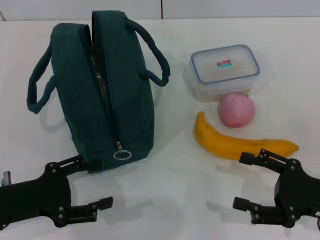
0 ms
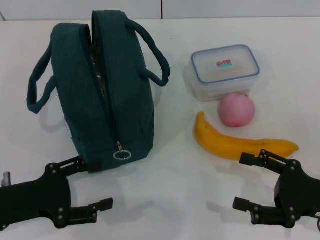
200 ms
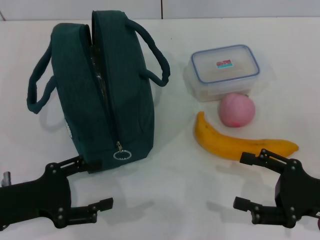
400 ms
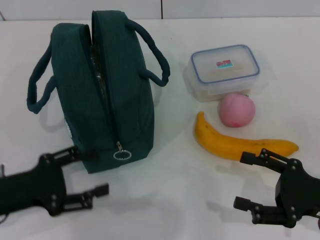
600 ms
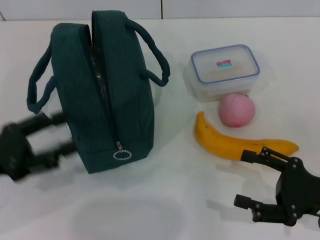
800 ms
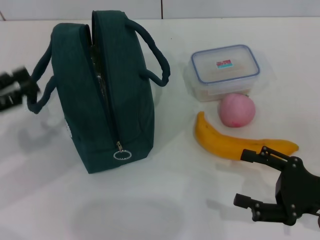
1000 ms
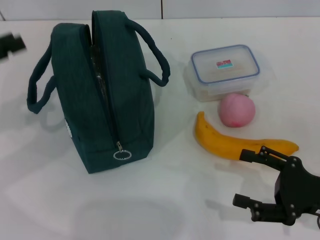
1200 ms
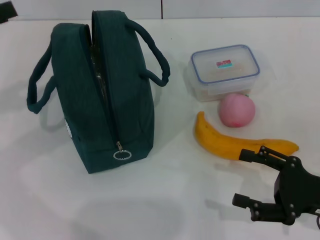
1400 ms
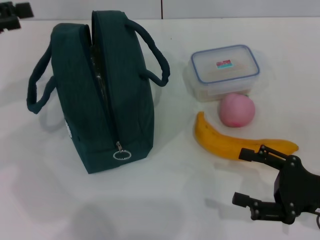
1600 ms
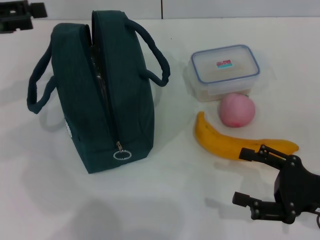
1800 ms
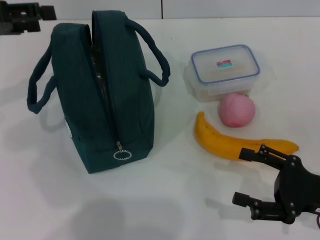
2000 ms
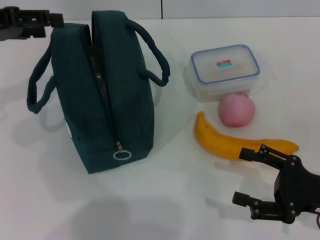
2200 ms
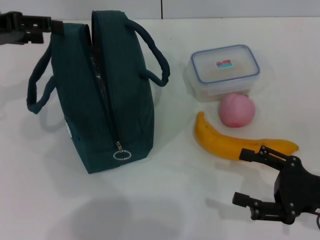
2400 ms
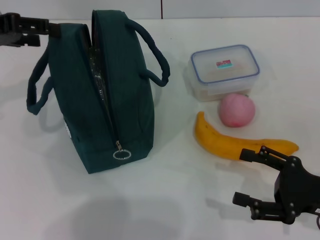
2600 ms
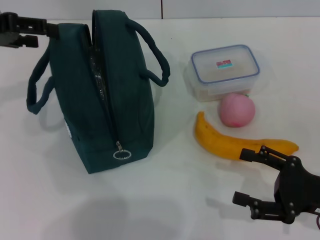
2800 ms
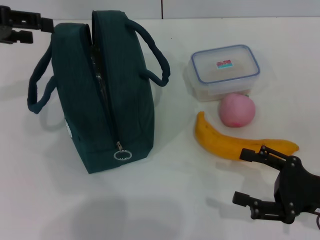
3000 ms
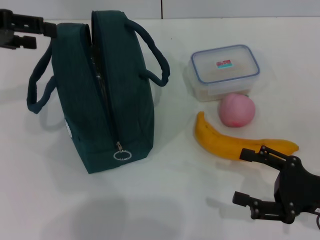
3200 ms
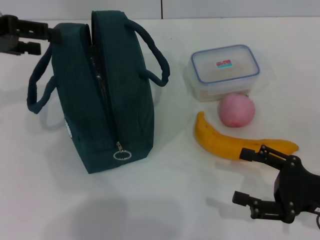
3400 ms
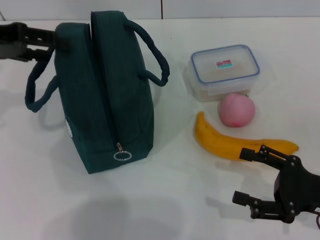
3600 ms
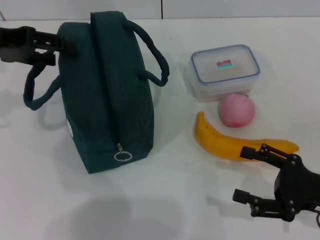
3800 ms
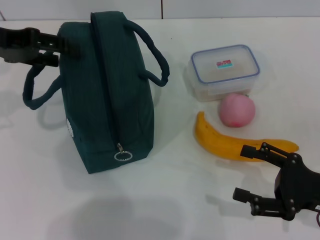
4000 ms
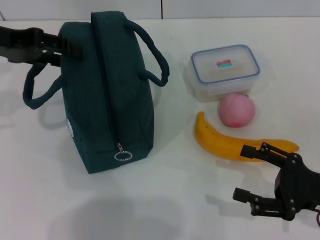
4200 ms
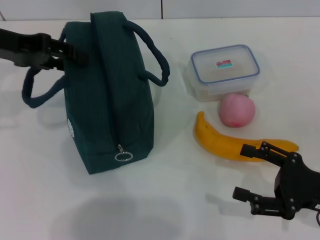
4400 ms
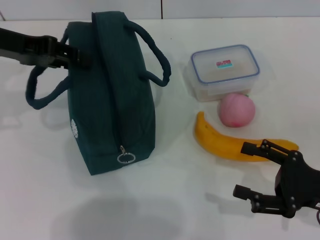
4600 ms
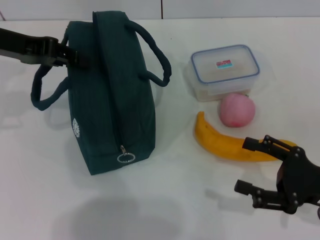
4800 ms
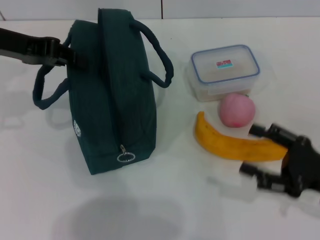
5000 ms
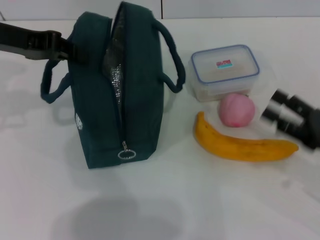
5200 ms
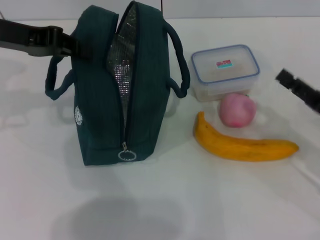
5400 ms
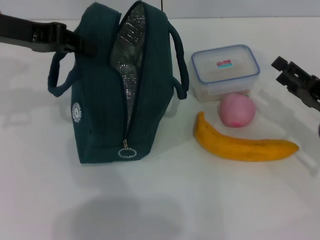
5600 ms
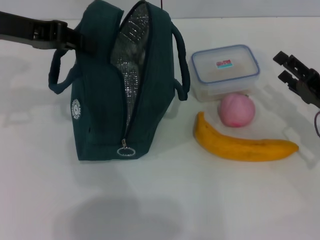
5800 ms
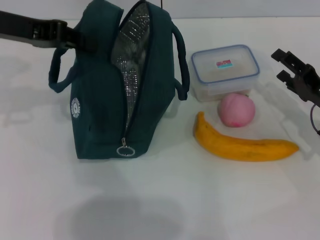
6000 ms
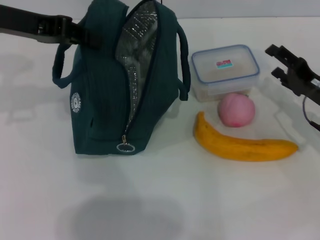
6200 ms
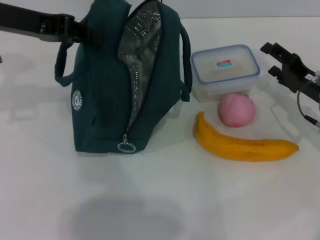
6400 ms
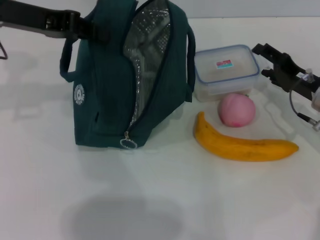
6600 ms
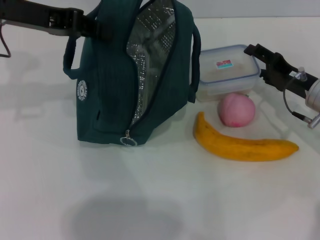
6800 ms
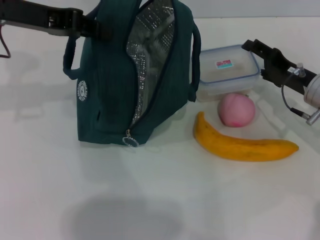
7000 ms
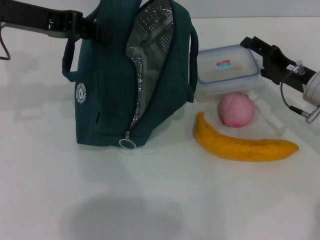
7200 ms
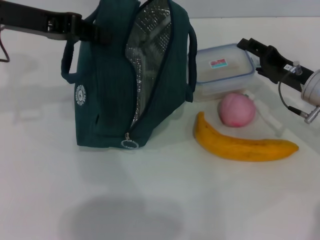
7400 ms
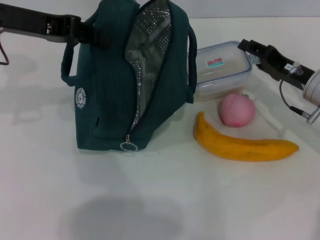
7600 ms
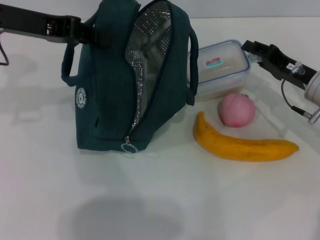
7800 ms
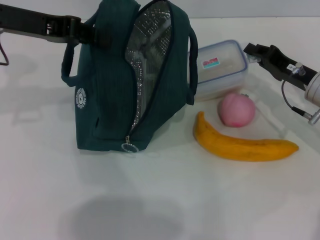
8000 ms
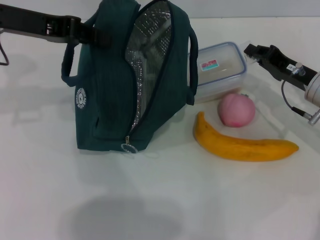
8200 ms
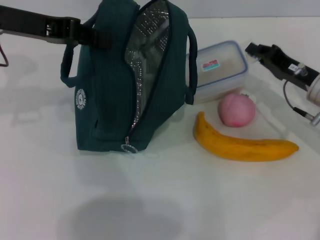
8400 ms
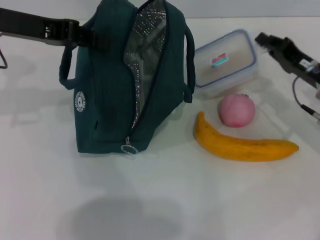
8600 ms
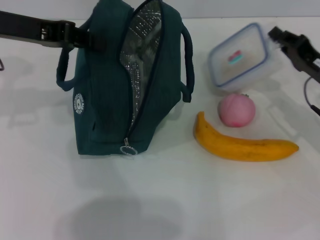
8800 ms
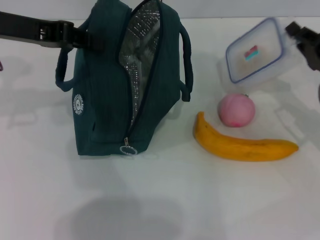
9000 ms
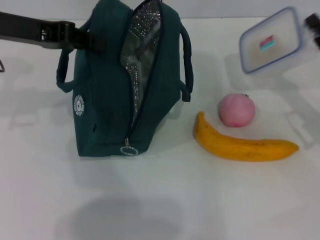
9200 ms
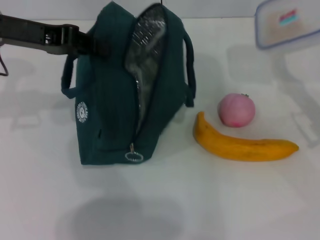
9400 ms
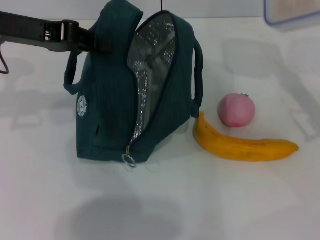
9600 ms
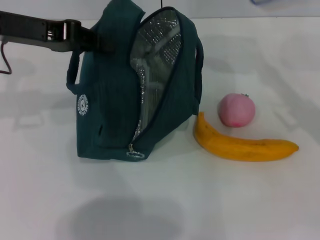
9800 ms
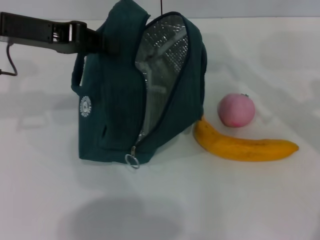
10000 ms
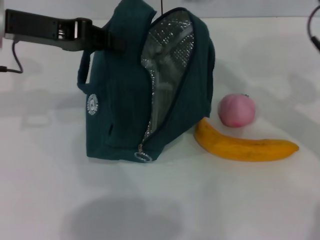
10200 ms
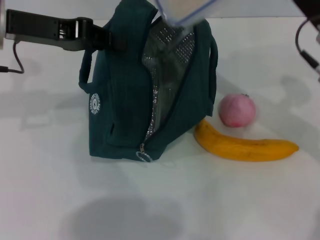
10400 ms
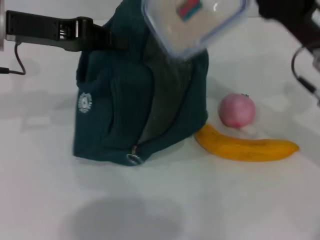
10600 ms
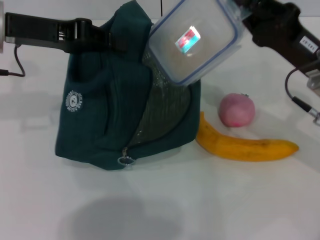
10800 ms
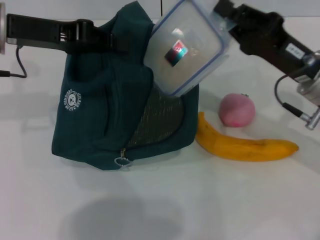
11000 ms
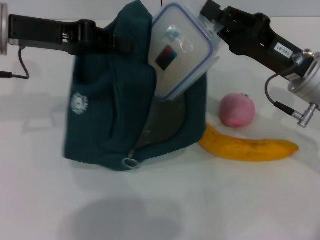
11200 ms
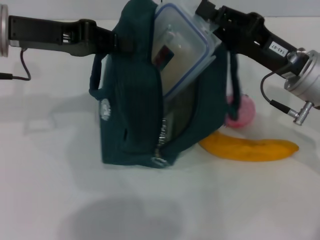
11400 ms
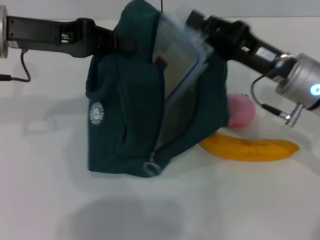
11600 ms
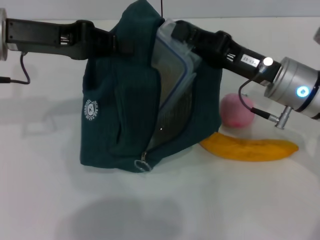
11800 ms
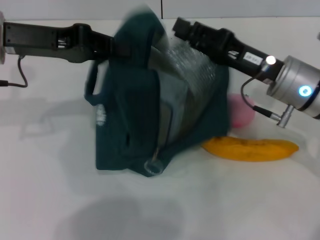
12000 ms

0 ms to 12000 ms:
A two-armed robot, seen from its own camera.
Step, 0 ms to 5800 ms: Hold the lunch bag with your left hand.
Step, 6000 ms to 8200 ms: Pick up the lunch box with your right hand.
0 ms to 1600 ms: The left gripper travels upward, forward and to the left by some 20 cm.
1600 ms to 3000 ms: The grippers move only a little.
3000 ms to 4400 ms: The grippers move only a little.
4400 ms to 6000 ms: The right gripper goes roughly 10 cm forward. Meanwhile the left gripper closes up.
6000 ms to 7600 ms: The right gripper moves about 5 cm.
7600 ms to 9000 ms: The right gripper ends up about 5 cm from where it was, and closes its fingers.
9000 ms to 10400 ms: The right gripper shifts about 10 cm upward and to the left.
10400 ms to 12000 ms: The right gripper changes place by approximately 5 cm.

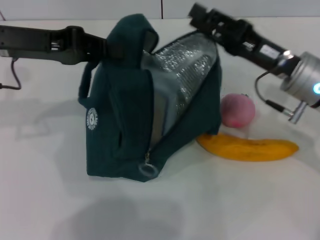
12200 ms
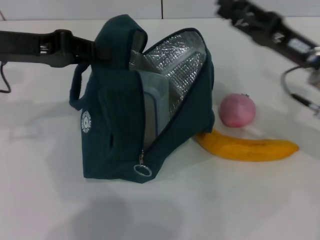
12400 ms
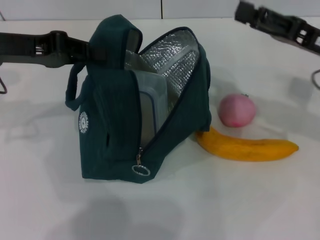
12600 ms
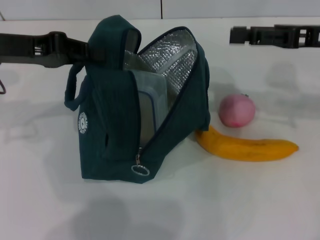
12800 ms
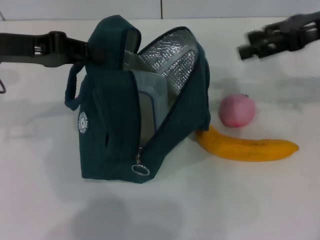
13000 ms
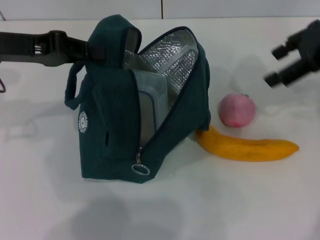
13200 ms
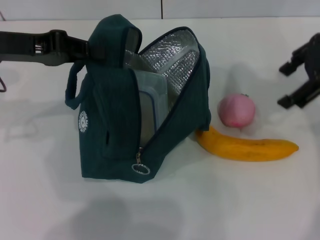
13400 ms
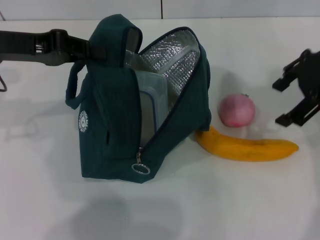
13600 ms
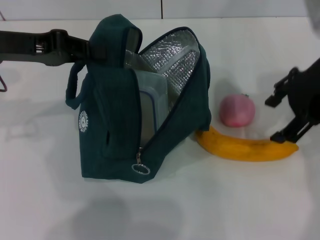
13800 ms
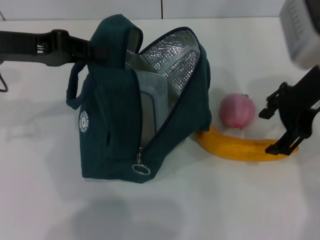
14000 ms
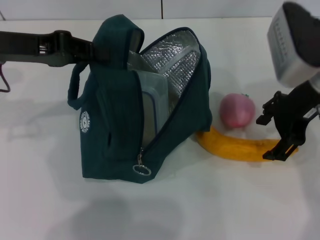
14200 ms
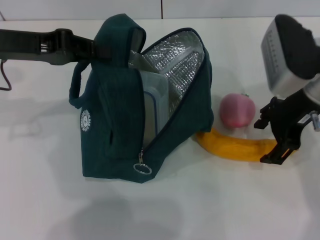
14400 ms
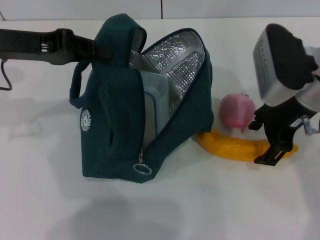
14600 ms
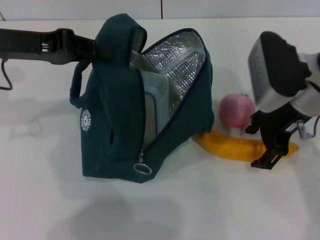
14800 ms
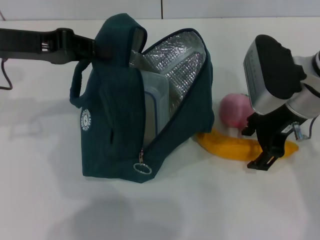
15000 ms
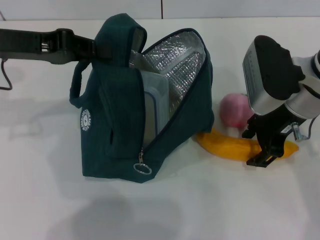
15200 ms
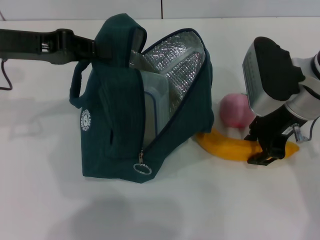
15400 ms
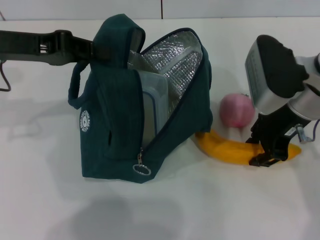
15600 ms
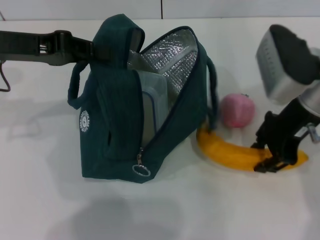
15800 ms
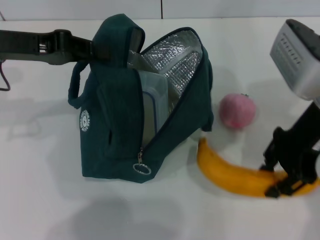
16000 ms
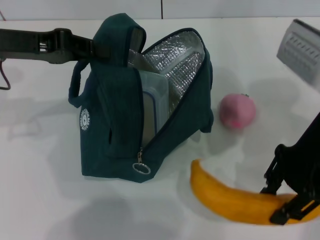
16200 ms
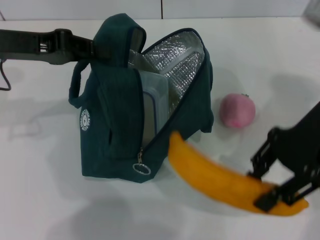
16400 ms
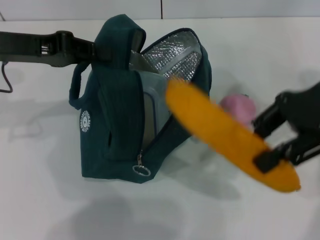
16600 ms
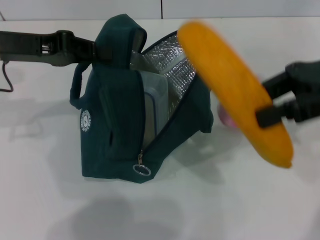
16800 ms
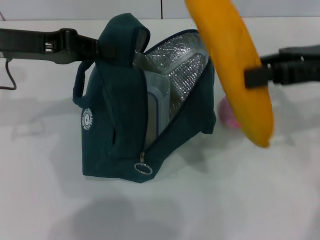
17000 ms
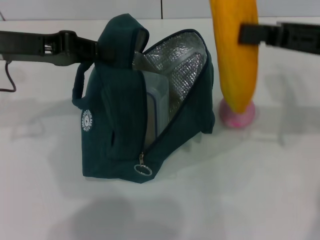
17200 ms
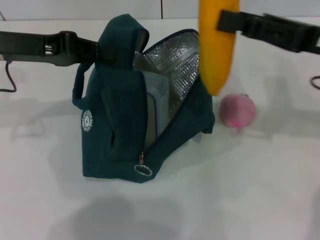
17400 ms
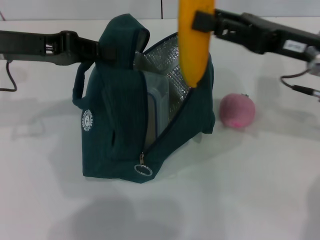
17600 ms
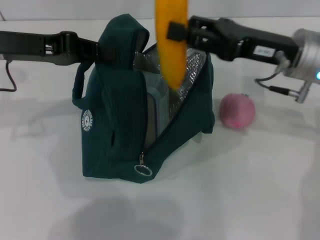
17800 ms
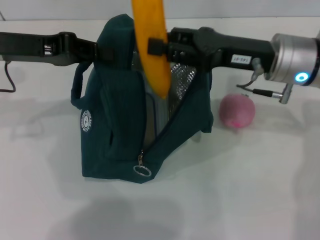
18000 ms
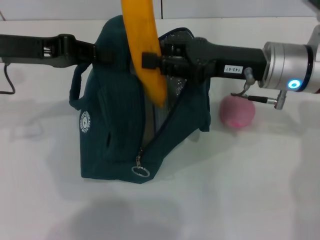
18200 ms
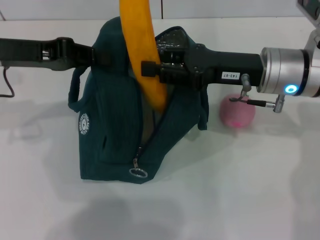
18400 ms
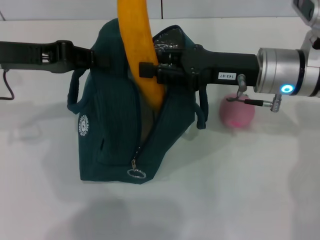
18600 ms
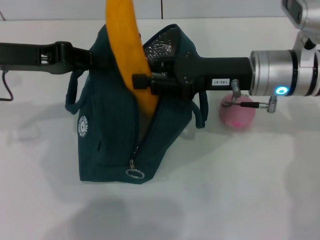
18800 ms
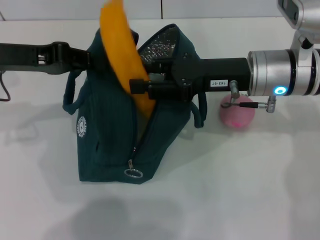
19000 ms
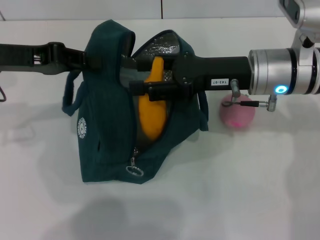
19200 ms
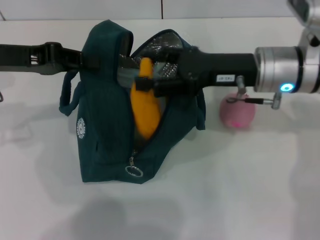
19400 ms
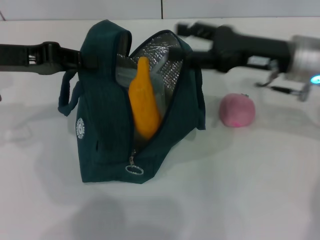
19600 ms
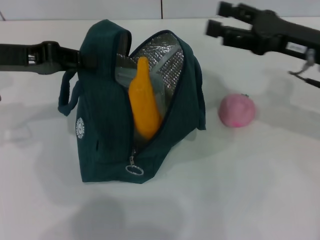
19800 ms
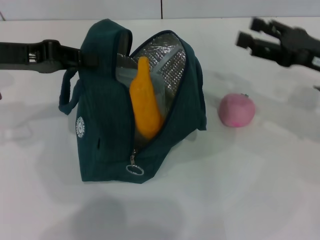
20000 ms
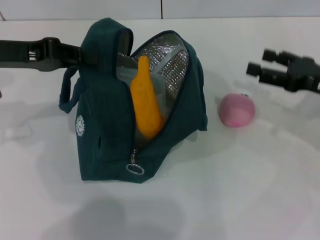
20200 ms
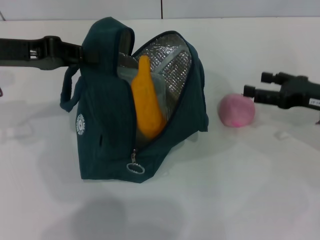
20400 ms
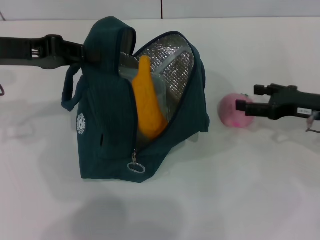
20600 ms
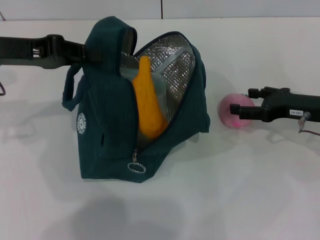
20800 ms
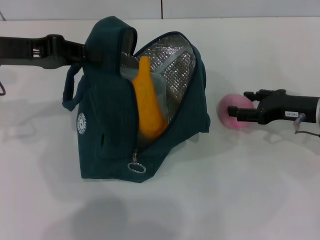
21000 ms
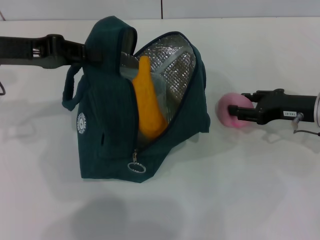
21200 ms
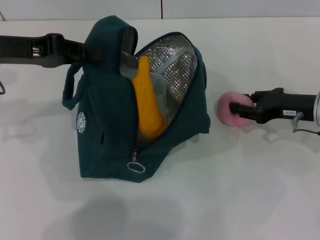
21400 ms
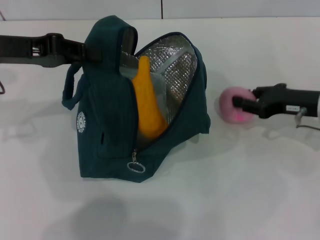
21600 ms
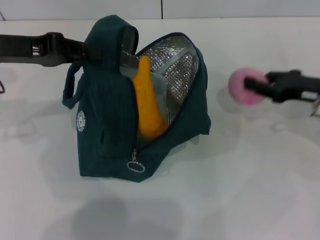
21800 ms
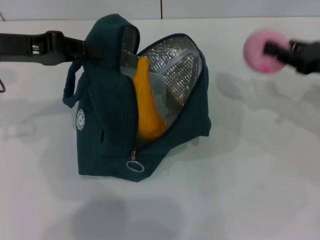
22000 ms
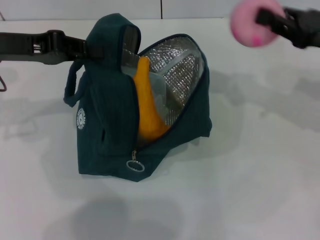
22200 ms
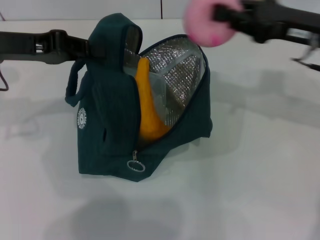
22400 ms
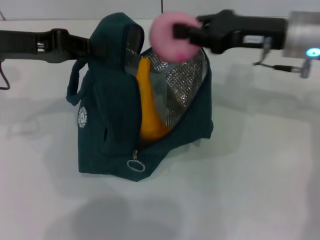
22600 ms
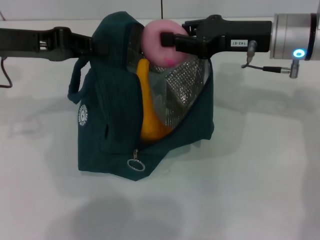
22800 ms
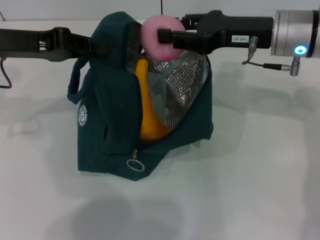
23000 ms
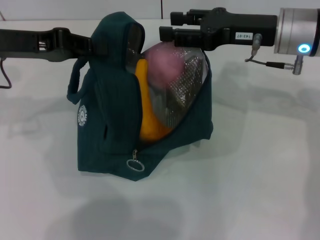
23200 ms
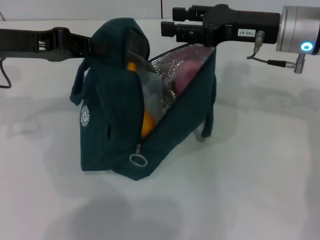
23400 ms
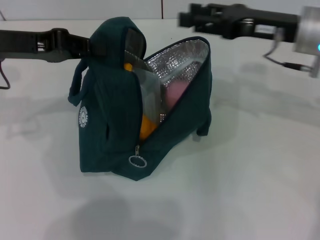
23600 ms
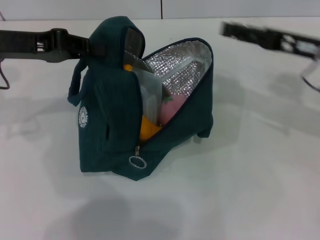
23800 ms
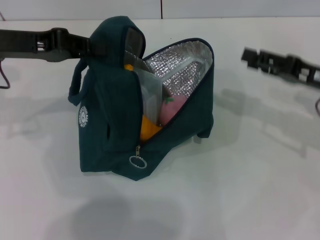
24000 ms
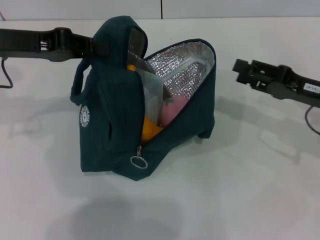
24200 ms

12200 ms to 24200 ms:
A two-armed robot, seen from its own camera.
Step, 12200 ms to 15200 ms: Take the banana with your right hand.
Step, 15400 ms to 19400 ms: Put the banana into the lunch bag with your right hand.
Step, 19600 ms to 21000 ms: Grab the peach with your right hand.
12200 ms to 13800 ms: The right gripper shifts about 10 cm upward, and opens.
13800 ms to 15200 ms: The right gripper travels downward by some 10 cm.
15200 ms to 16600 ms: The right gripper is displaced upward and to the right by approximately 10 cm, and closes up.
16600 ms to 18200 ms: The right gripper moves downward and to the left, about 10 cm.
18200 ms to 19800 ms: The right gripper goes about 10 cm to the right, and opens.
19800 ms to 21200 ms: The right gripper moves downward, about 10 cm.
21200 ms to 22600 ms: The right gripper travels upward and to the left by roughly 15 cm, and closes.
22600 ms to 24200 ms: The right gripper travels to the right, downward and backward by about 15 cm, and opens up.
